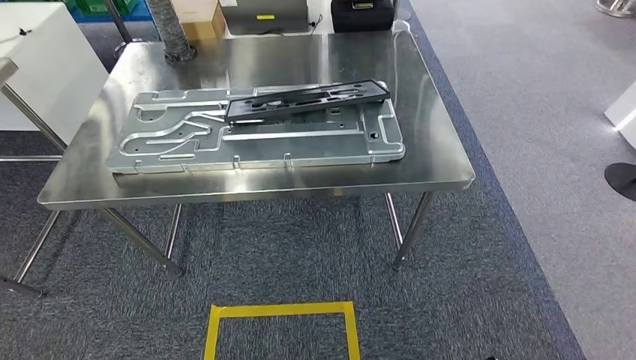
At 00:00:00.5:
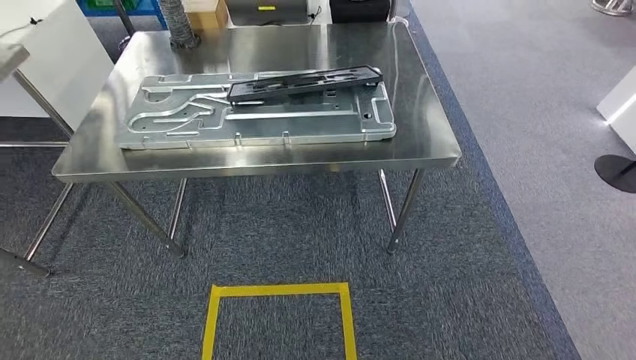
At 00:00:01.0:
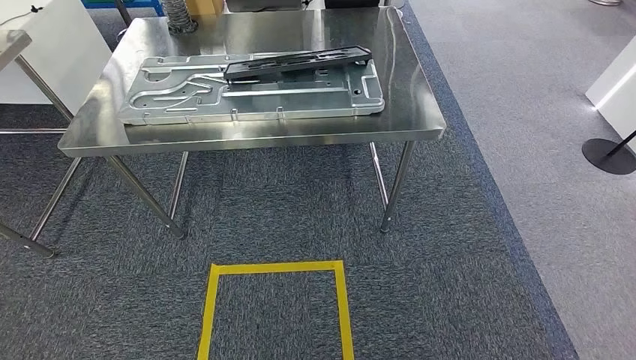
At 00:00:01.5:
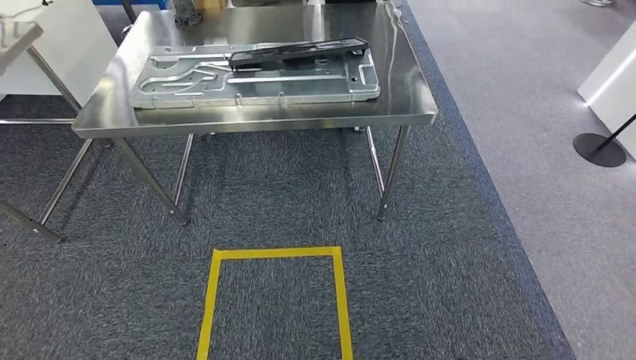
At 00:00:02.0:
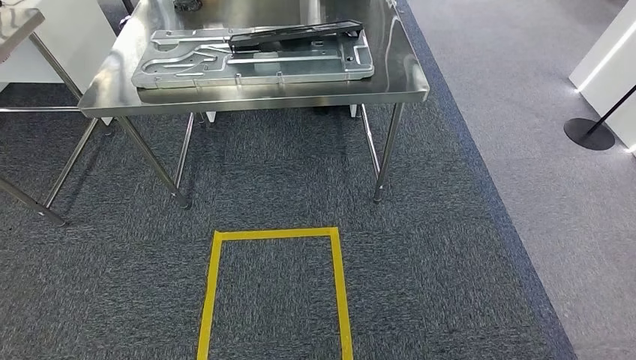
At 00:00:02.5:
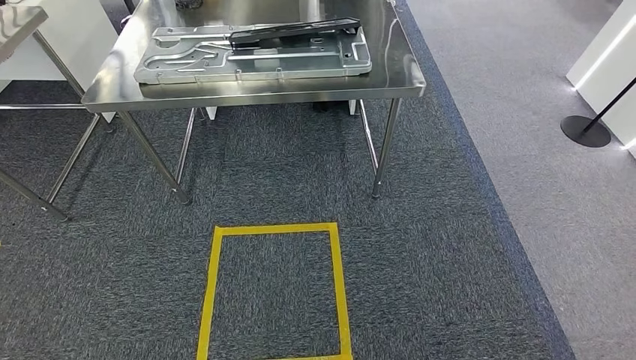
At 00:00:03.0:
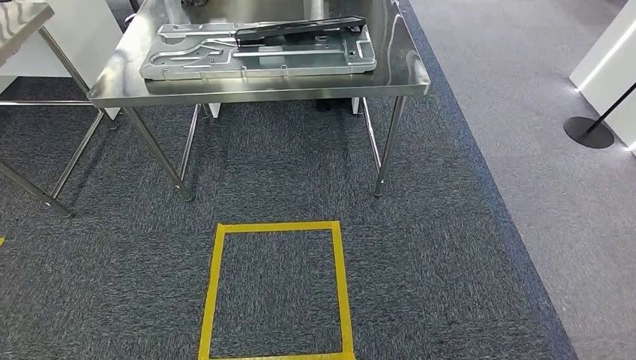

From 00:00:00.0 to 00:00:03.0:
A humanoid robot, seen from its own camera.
Step, from 00:00:00.0 to 00:00:03.0: Move to the initial position of the shelf.

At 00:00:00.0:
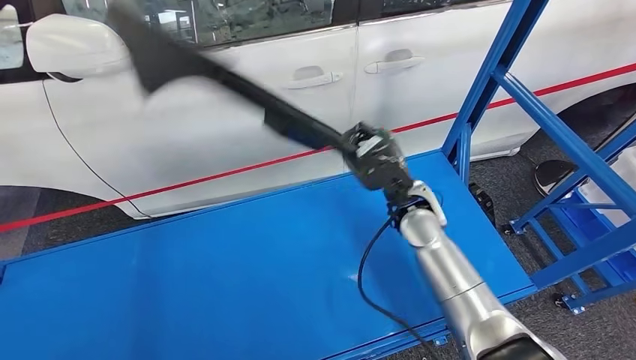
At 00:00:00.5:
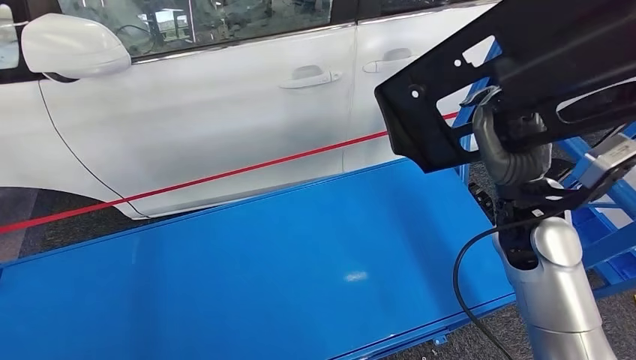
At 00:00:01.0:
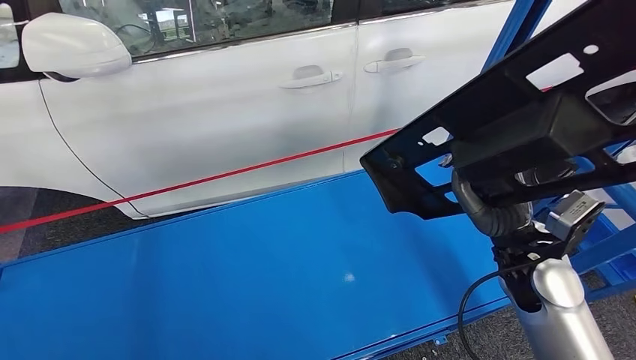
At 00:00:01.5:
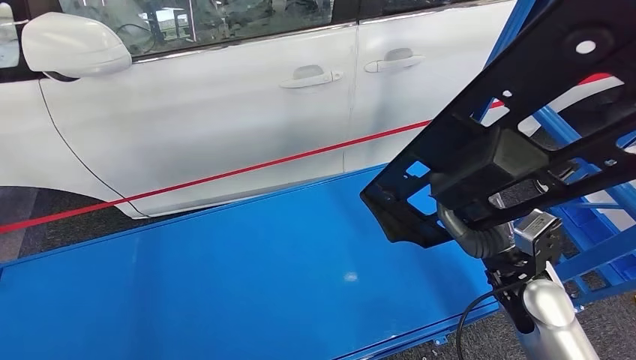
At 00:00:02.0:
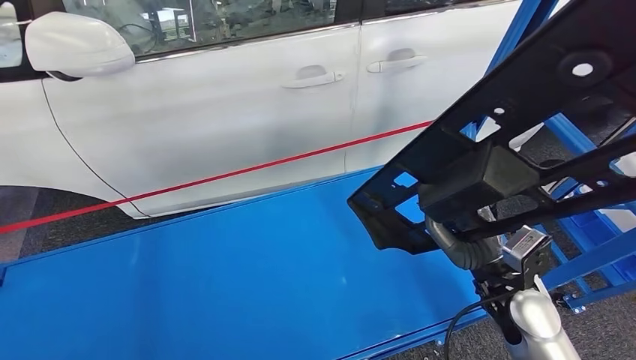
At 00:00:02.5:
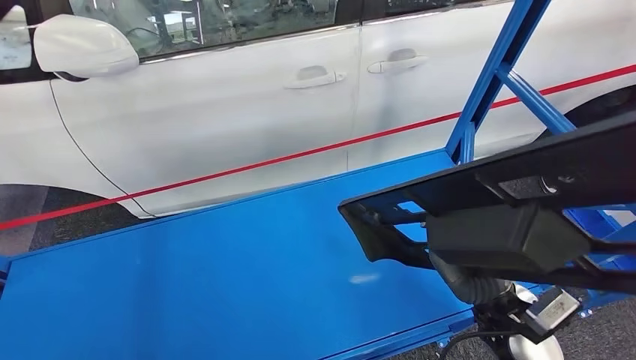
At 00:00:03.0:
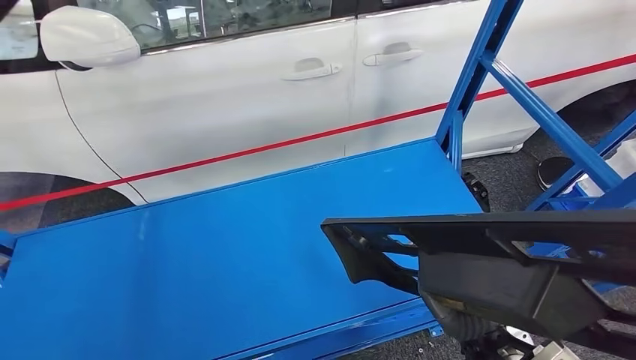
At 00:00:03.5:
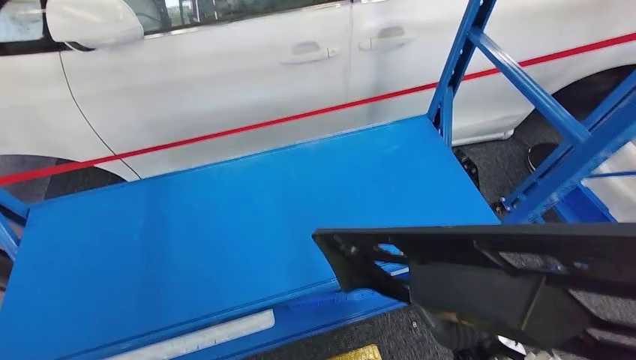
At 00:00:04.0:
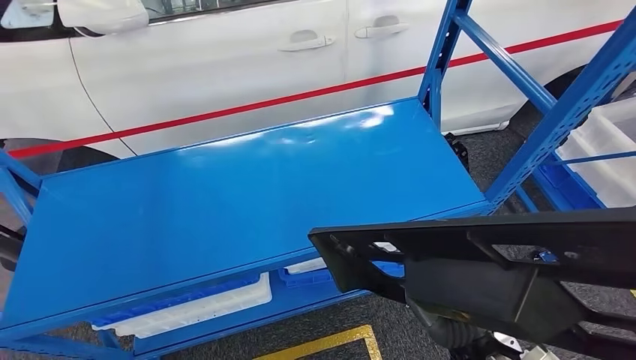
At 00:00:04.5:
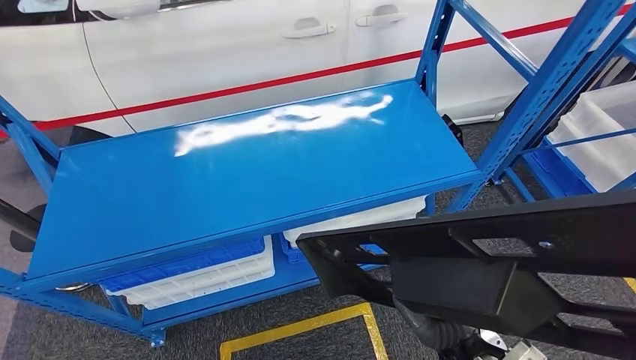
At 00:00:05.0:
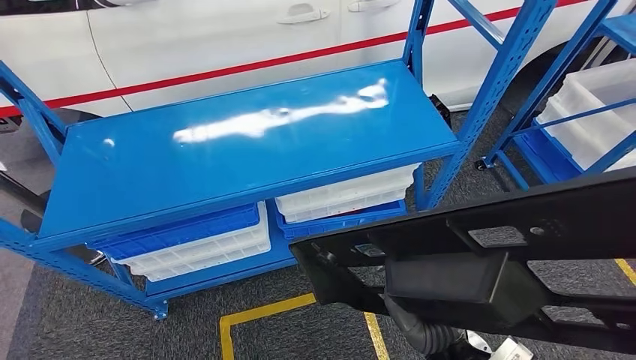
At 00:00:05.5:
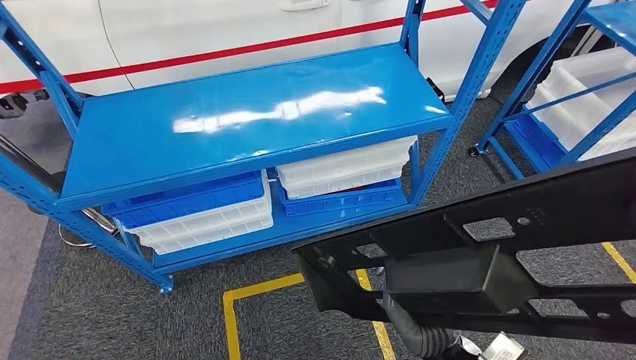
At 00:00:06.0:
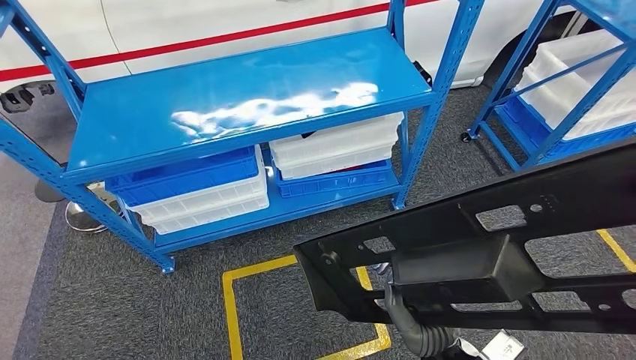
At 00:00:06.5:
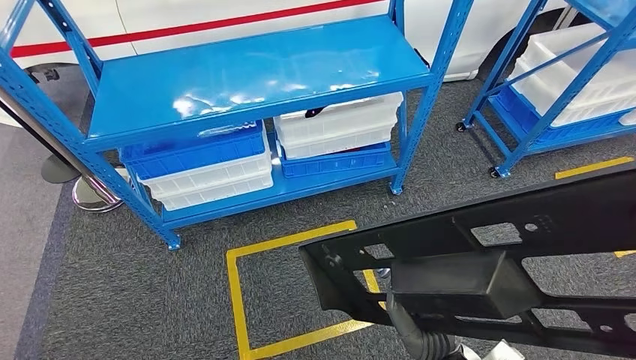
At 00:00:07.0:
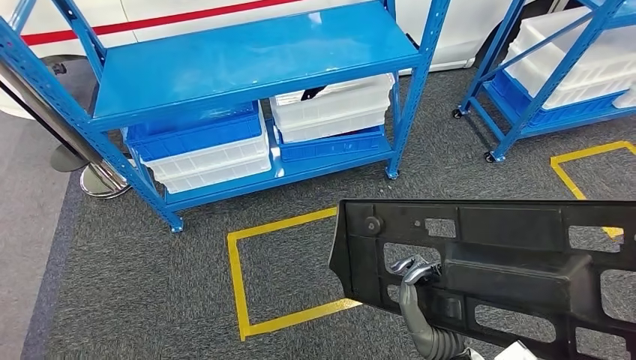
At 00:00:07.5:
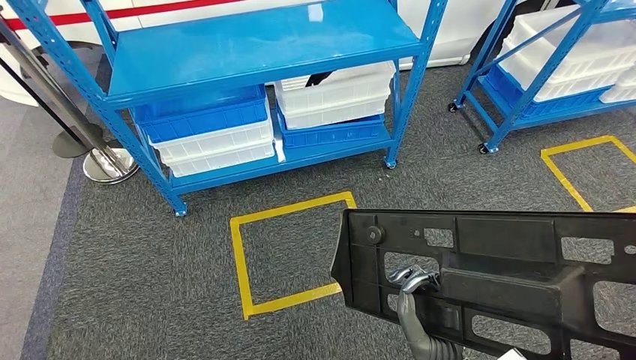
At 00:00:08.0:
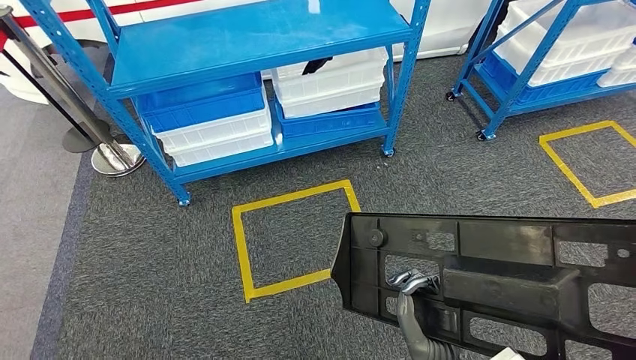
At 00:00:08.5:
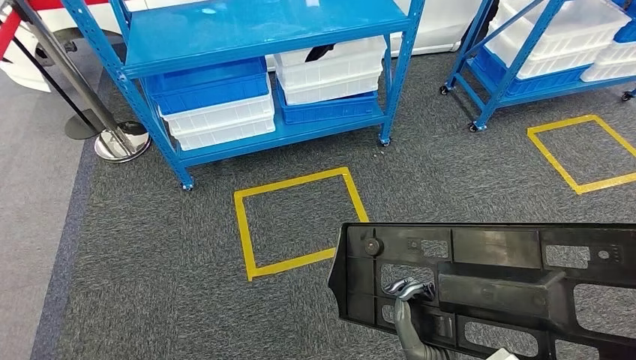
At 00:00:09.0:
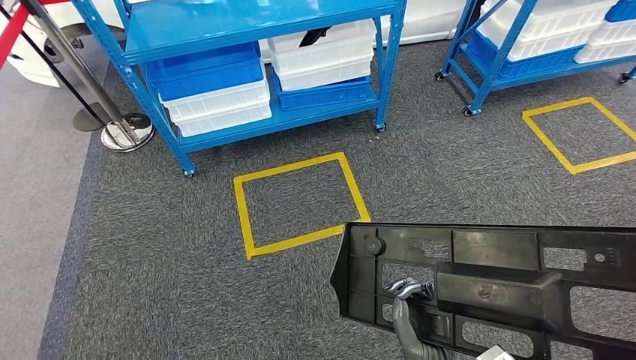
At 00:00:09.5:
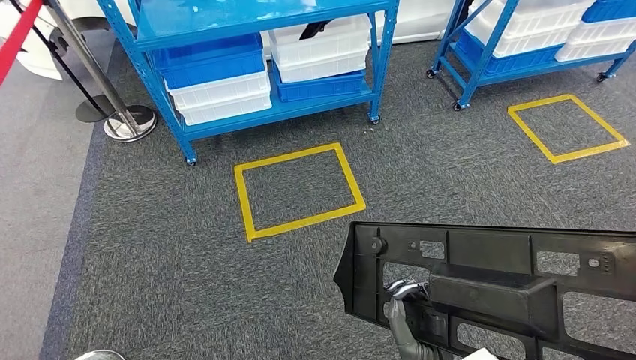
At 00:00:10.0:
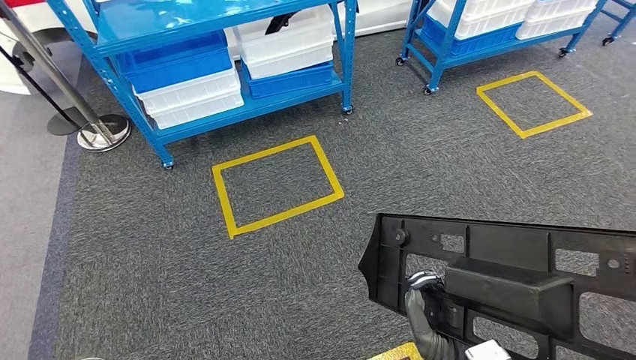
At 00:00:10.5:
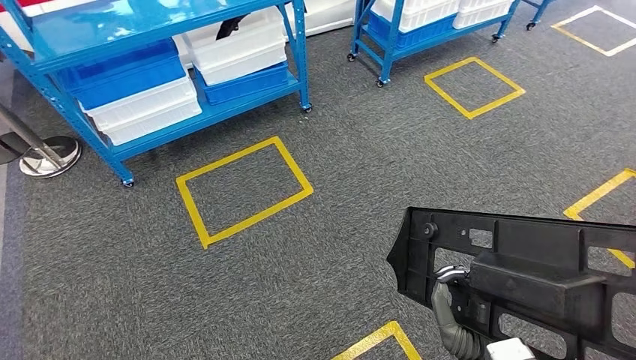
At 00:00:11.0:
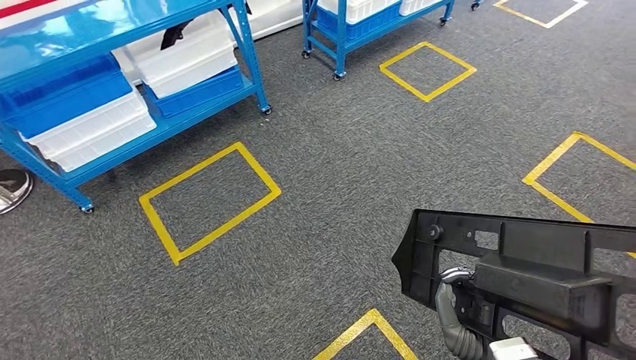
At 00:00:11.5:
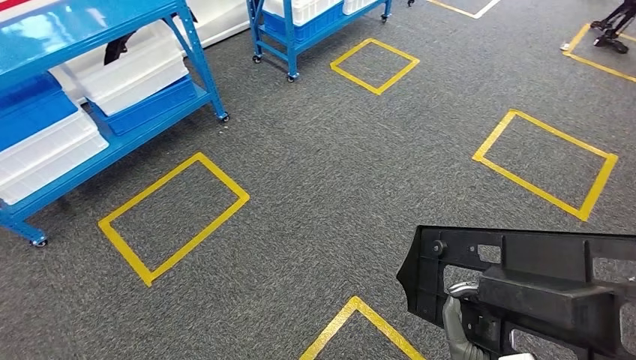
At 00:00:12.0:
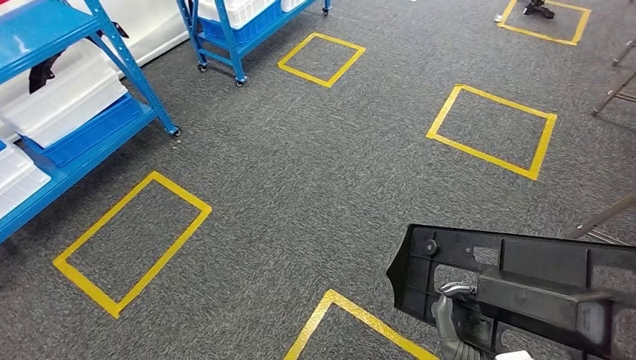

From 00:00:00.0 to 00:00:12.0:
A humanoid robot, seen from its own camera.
Step, from 00:00:00.0 to 00:00:04.0: Pick up the large material from the shelf.

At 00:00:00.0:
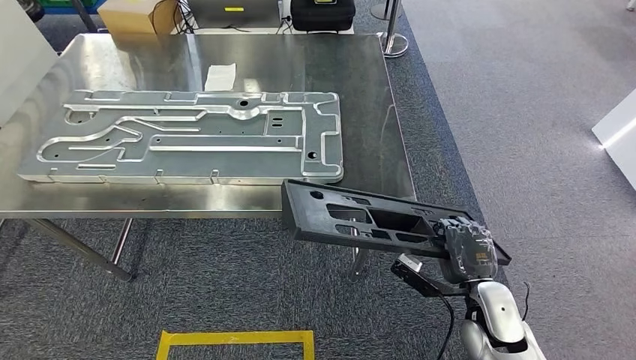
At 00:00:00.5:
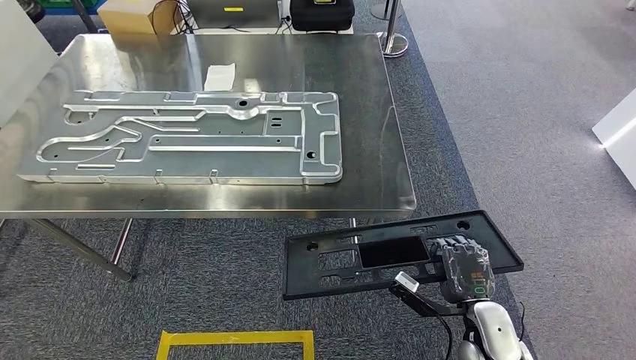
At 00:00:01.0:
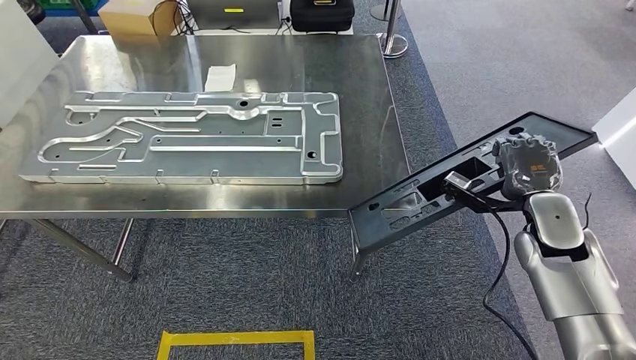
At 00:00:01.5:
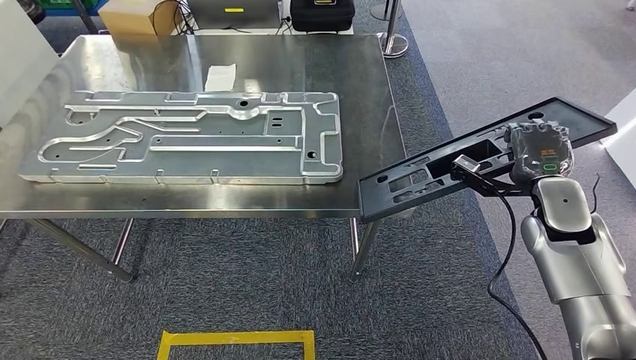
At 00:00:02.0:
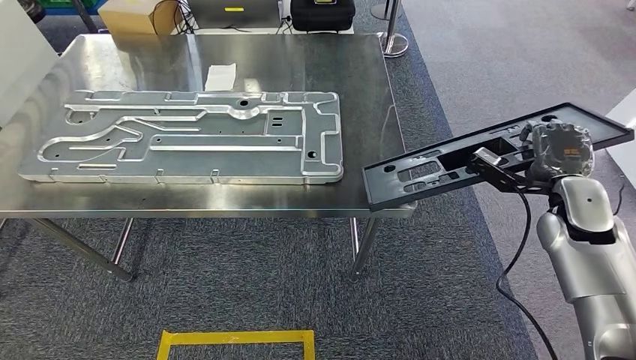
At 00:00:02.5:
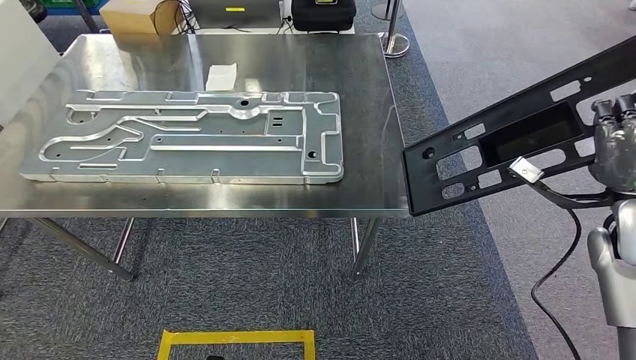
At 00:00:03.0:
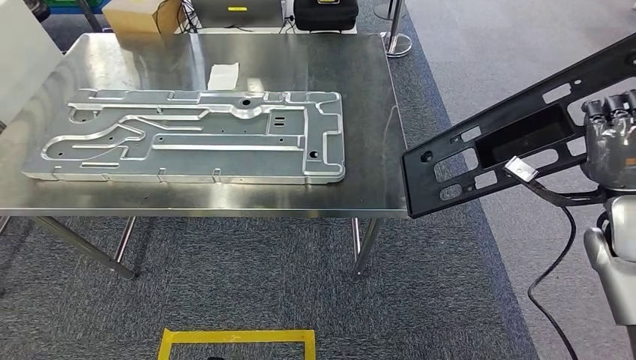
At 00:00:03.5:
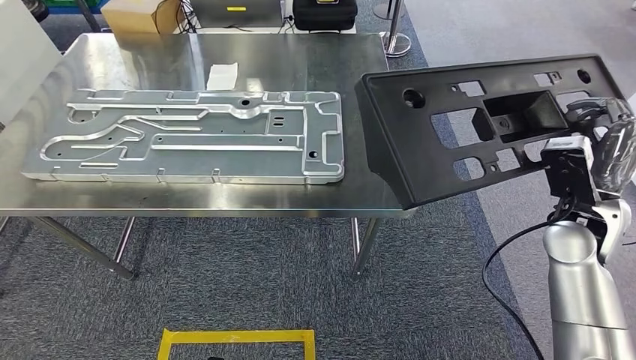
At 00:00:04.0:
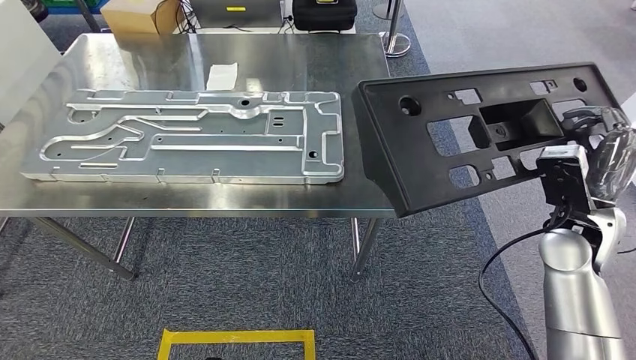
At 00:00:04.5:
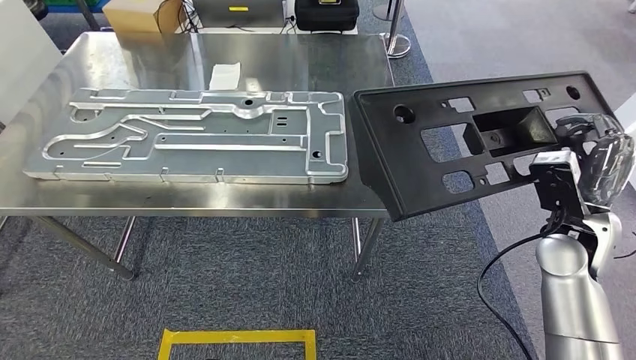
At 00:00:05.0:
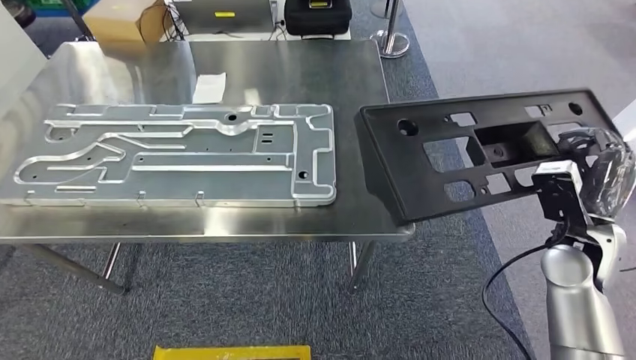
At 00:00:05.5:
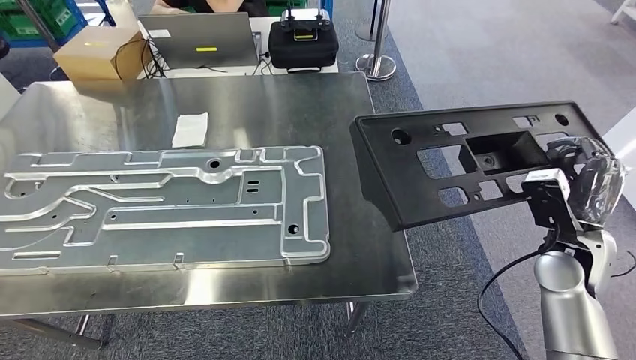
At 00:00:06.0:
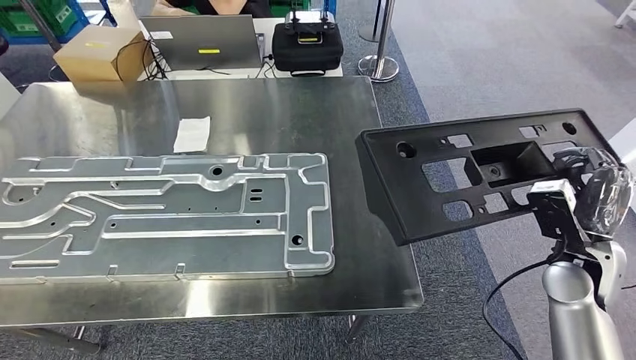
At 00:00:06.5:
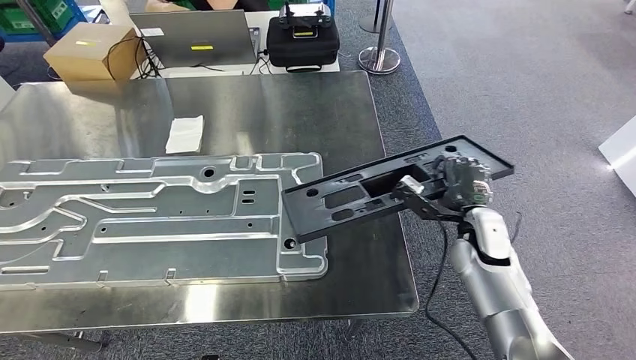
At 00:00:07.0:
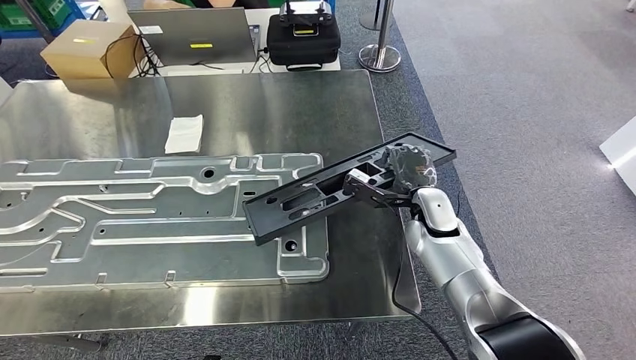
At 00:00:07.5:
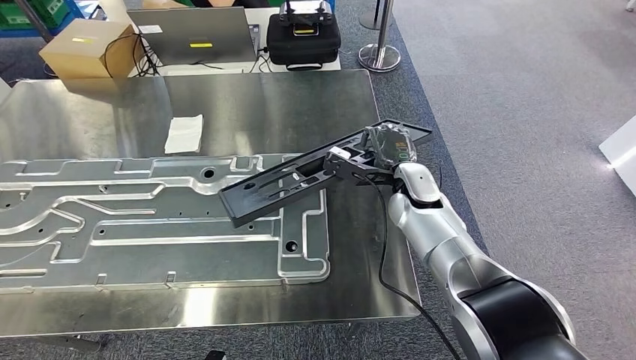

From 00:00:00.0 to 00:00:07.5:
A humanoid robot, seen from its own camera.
From 00:00:00.0 to 00:00:02.0: The right hand goes some 20 cm upward, to the right and forward.
